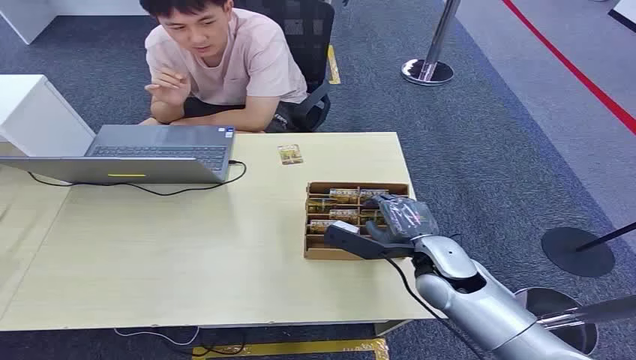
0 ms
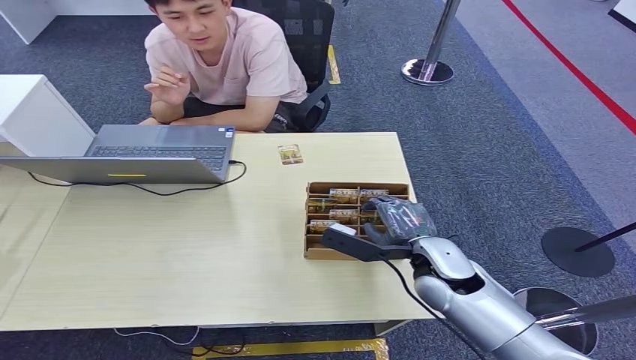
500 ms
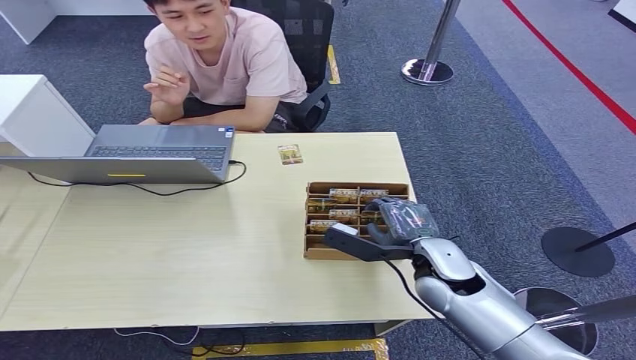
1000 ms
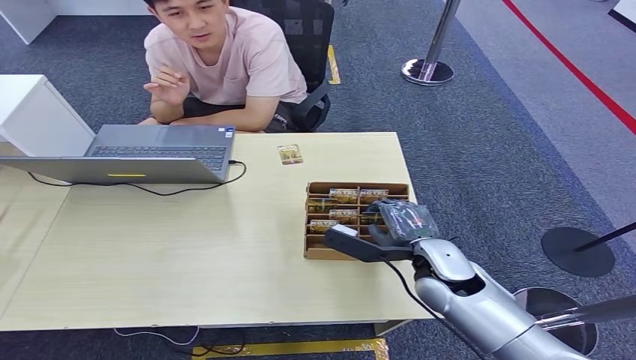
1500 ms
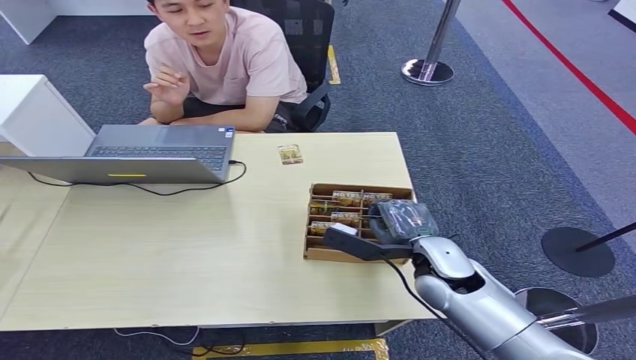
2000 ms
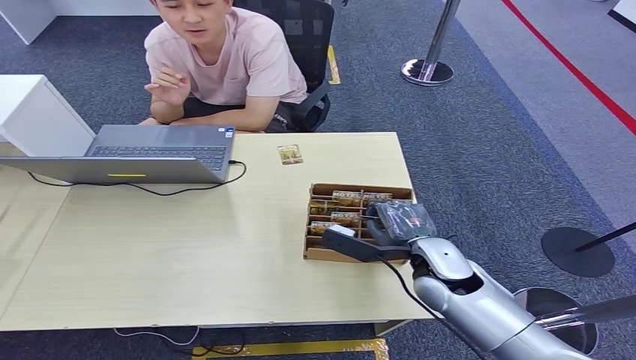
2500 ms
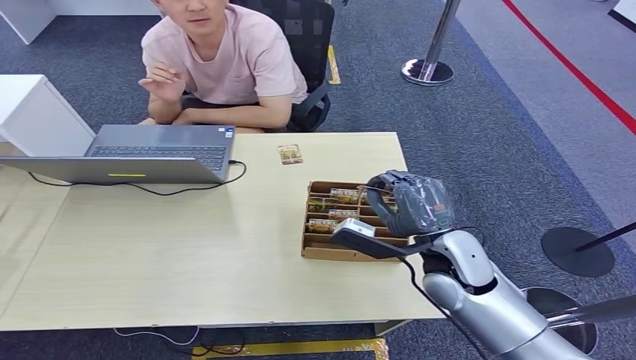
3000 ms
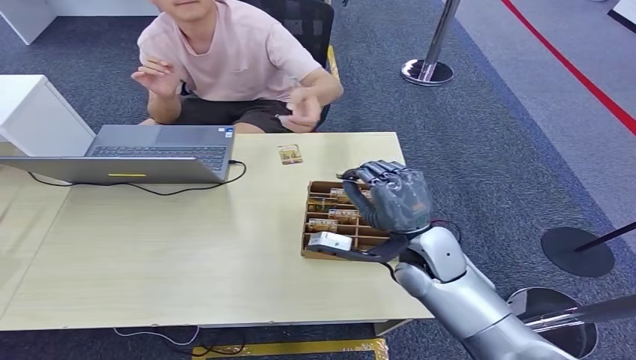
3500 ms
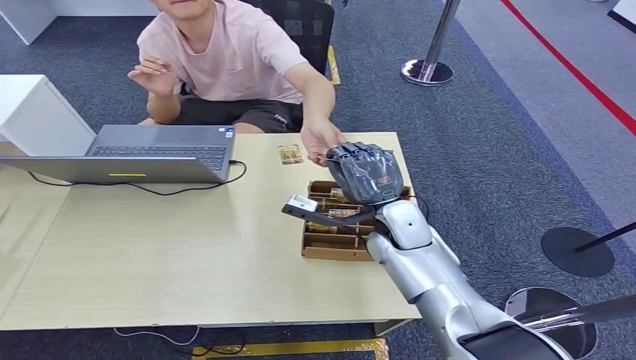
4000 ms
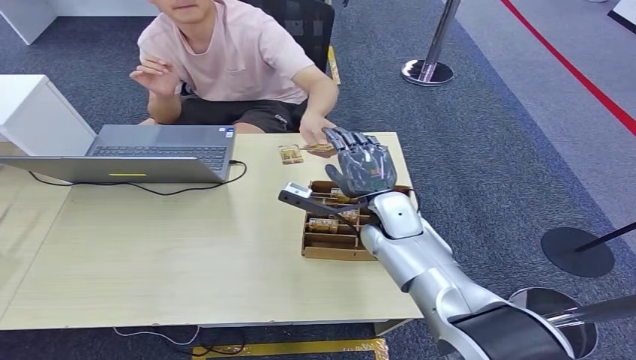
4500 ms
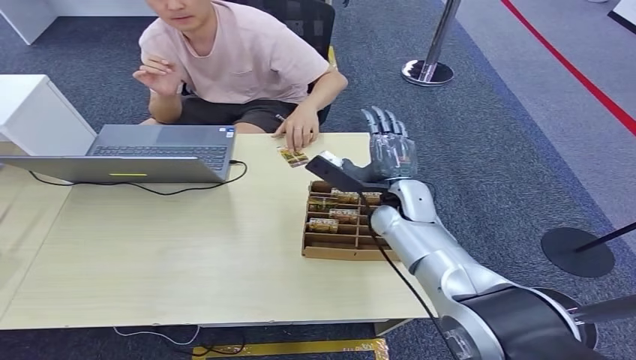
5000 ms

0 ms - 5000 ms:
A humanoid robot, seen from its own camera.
Step, 0 ms - 2500 ms: Pick up the key card from the card box.
Step, 3000 ms - 5000 ms: Hand the key card to the target.
2500 ms - 5000 ms: The right hand shifts approximately 10 cm forward.
